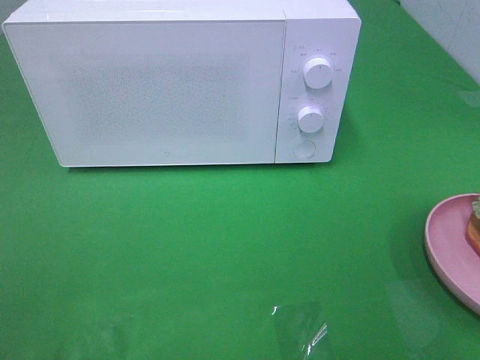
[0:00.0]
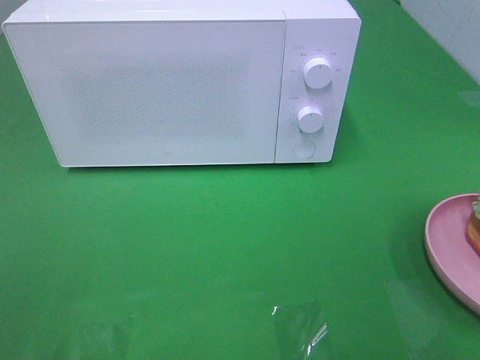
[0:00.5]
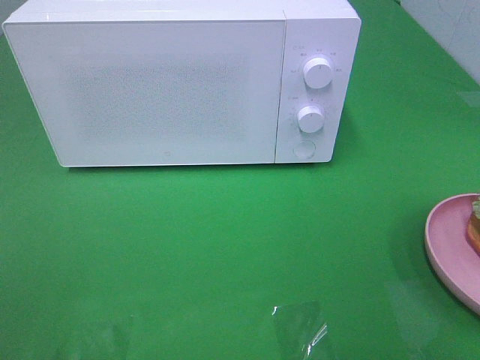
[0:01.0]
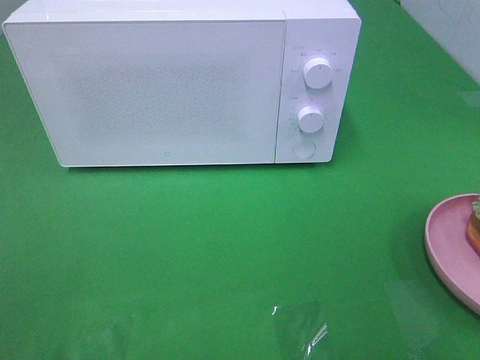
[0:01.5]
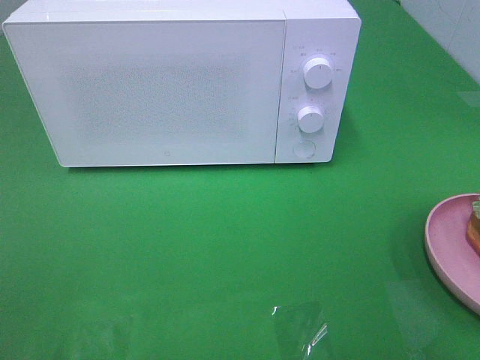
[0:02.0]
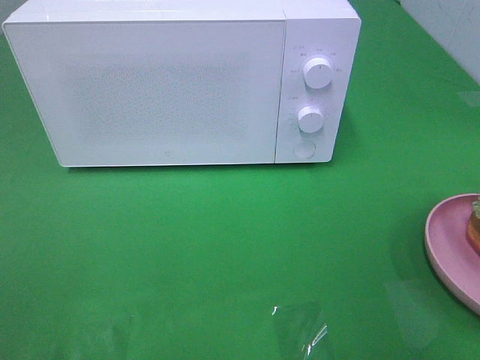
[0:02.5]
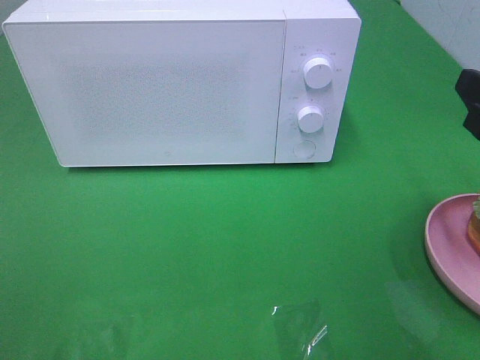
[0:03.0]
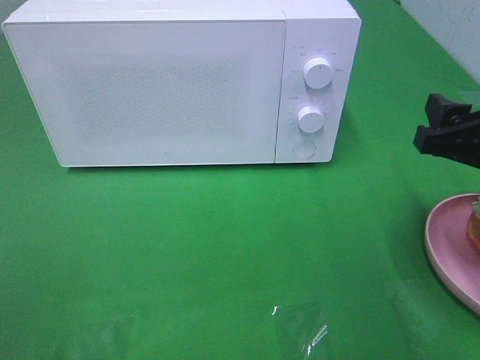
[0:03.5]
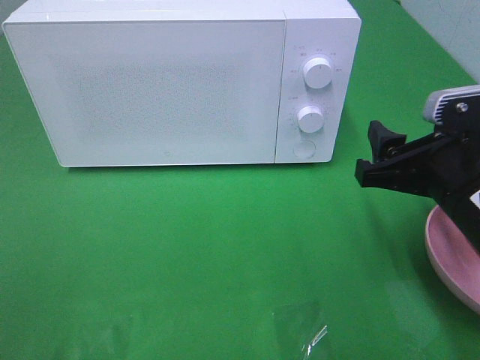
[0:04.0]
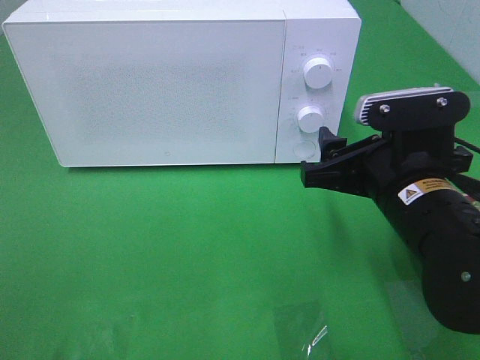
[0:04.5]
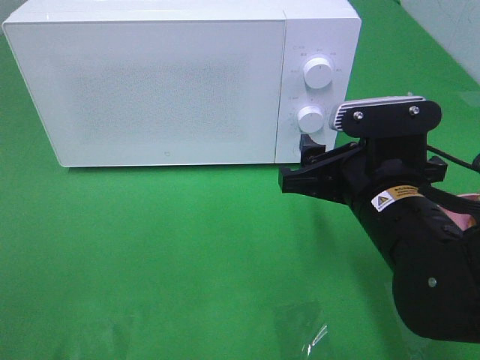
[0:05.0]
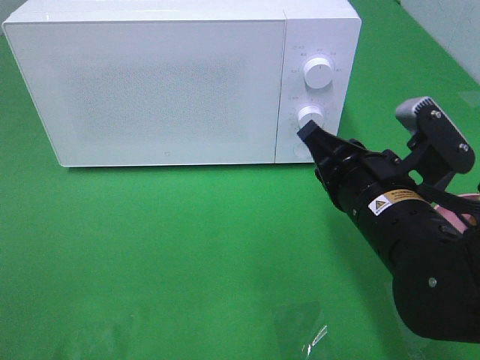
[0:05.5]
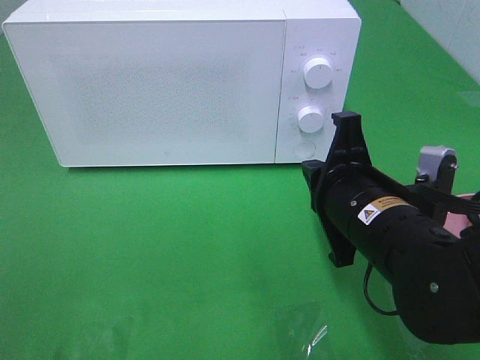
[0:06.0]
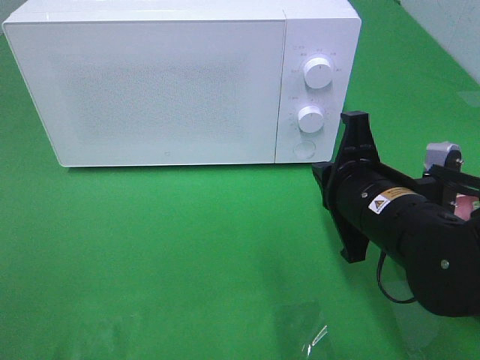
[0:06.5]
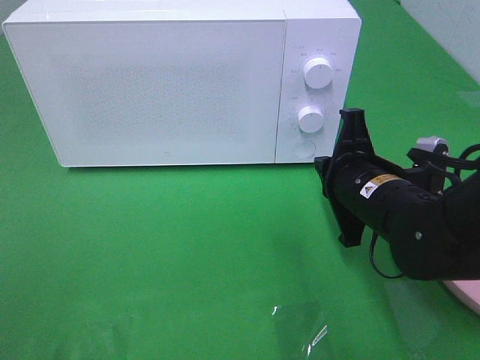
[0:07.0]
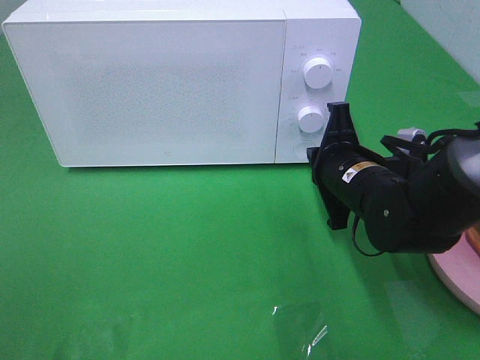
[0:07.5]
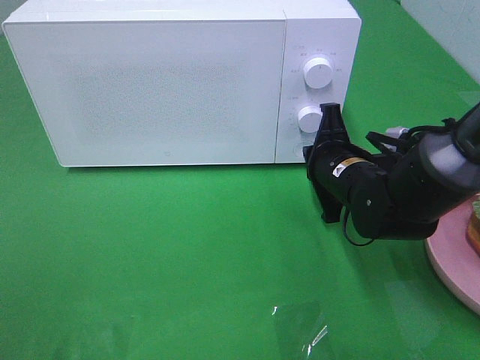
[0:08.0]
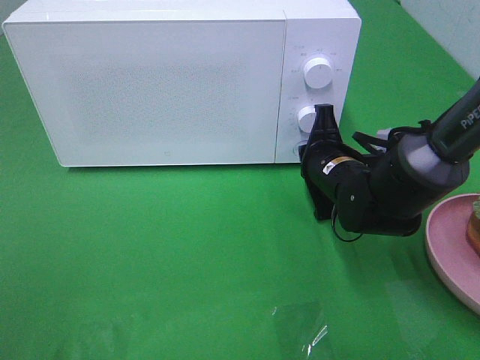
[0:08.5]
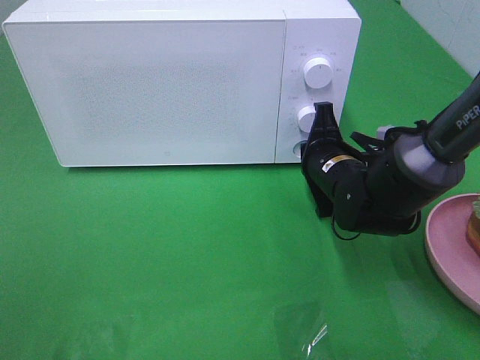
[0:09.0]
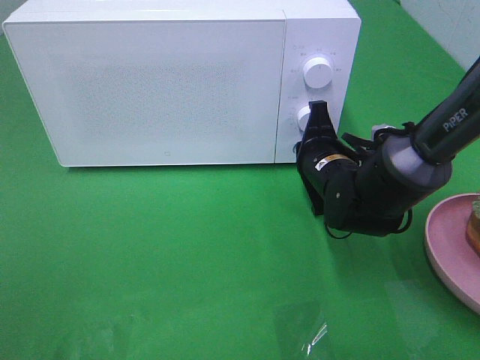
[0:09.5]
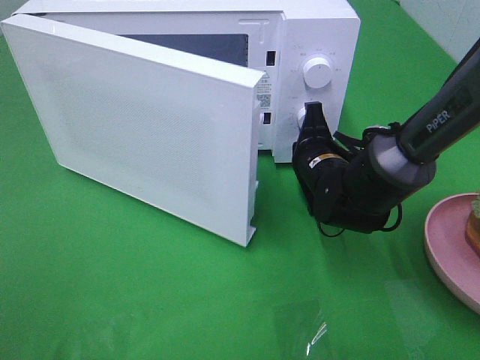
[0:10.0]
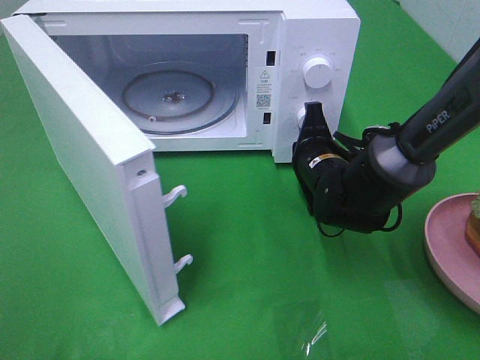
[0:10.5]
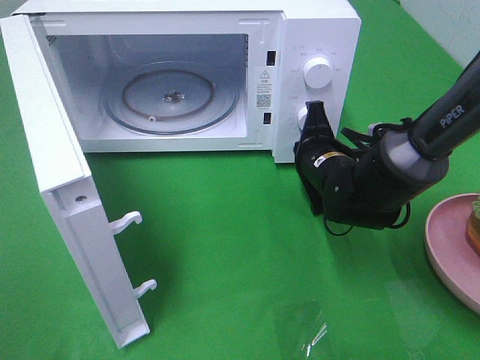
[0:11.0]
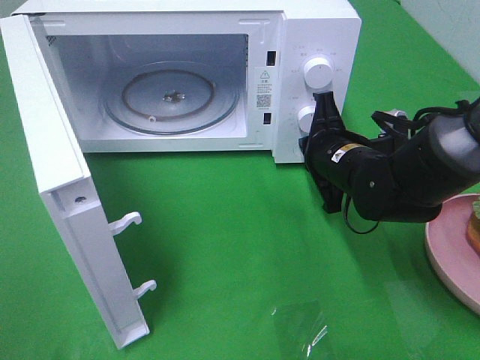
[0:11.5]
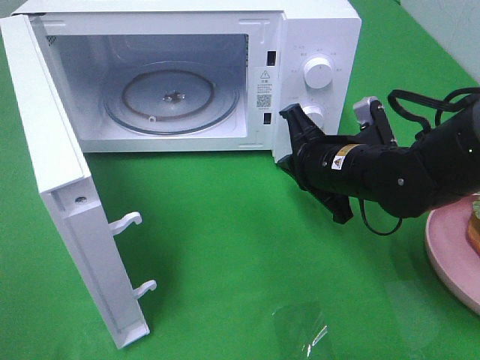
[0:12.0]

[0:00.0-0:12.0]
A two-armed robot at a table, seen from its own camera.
Task of the whole recording: Heat the burger.
Step, 0:00.0 to 0:11.0: Right hand: press the switch.
0:02.0 to 0:04.0: The right gripper is displaced forward, downward and to the left by about 20 cm.
0:04.0 to 0:06.0: The right gripper goes roughly 10 cm to the left, and closes up.
0:06.0 to 0:08.0: The right gripper goes approximately 15 cm forward and downward.
0:10.0 to 0:12.0: The right gripper shifts some 5 cm backward.

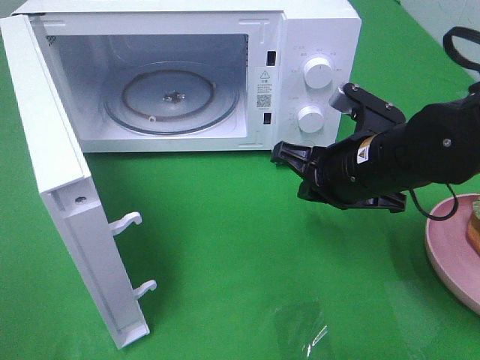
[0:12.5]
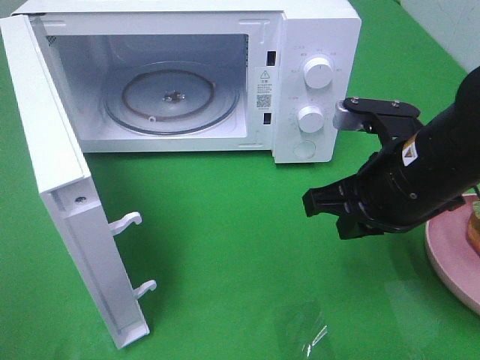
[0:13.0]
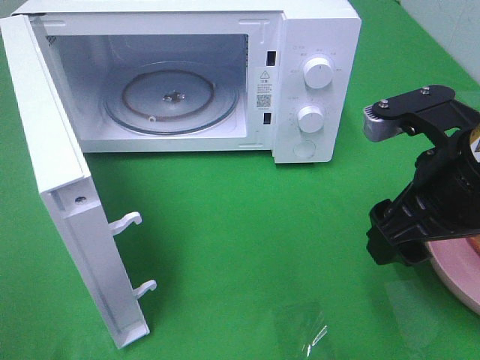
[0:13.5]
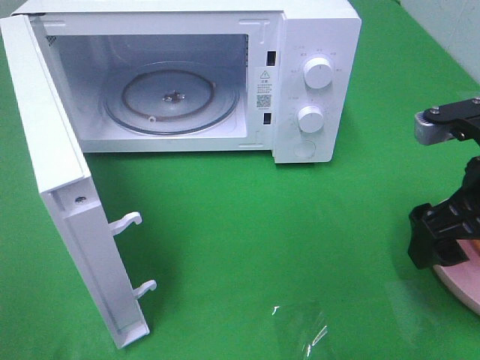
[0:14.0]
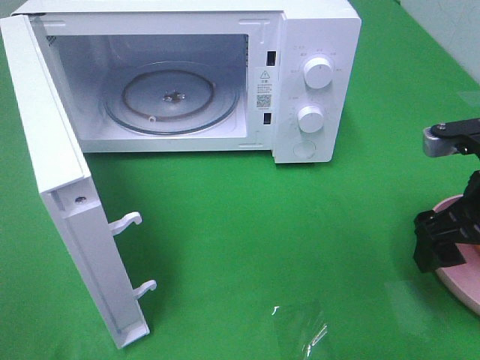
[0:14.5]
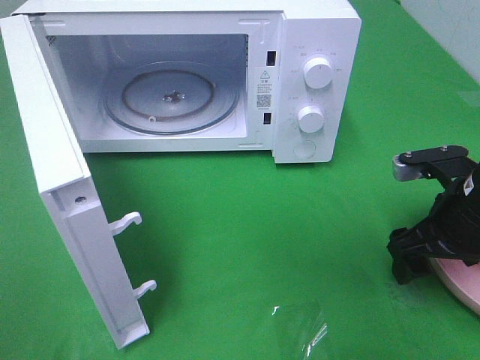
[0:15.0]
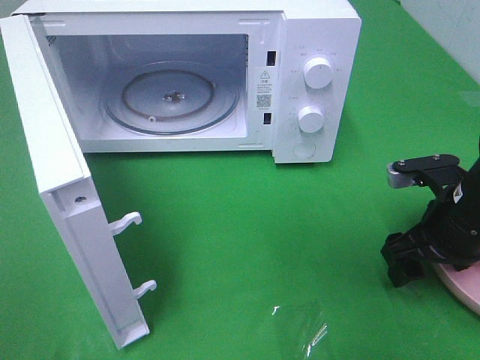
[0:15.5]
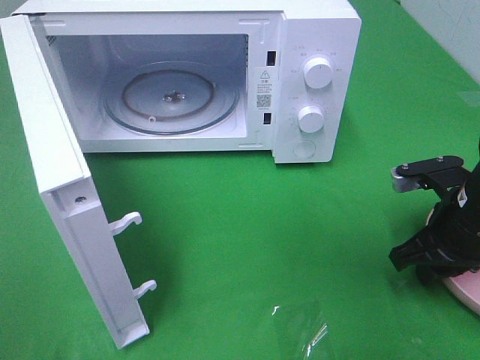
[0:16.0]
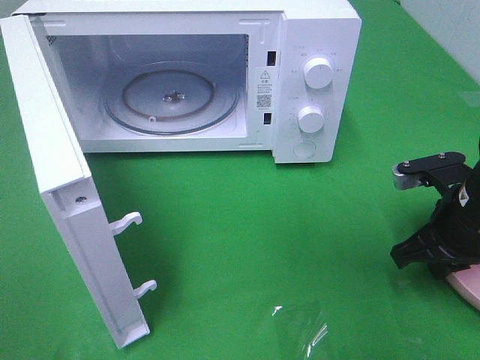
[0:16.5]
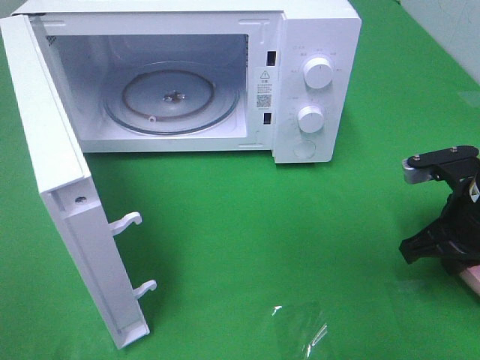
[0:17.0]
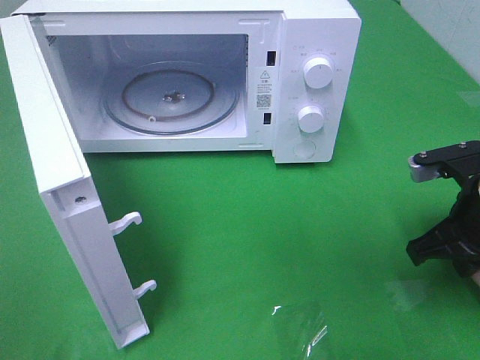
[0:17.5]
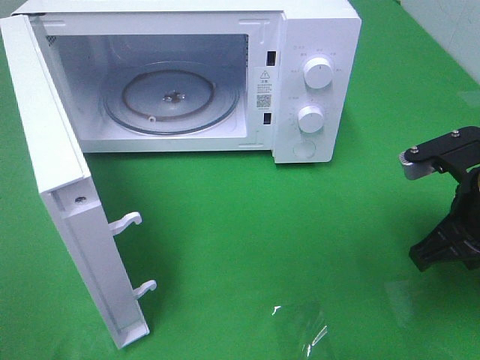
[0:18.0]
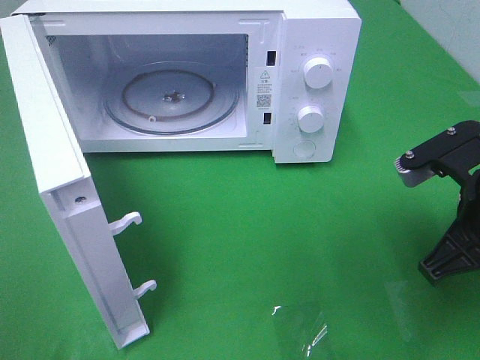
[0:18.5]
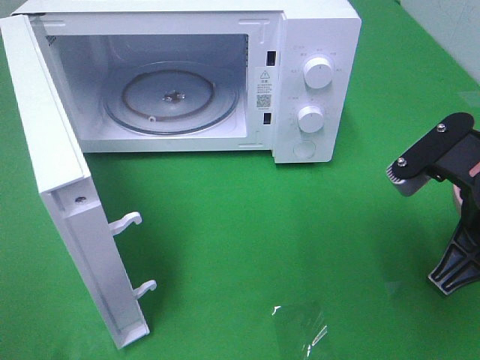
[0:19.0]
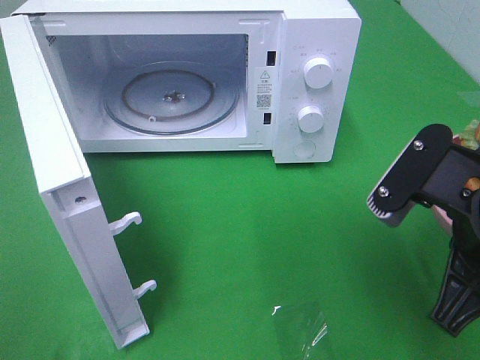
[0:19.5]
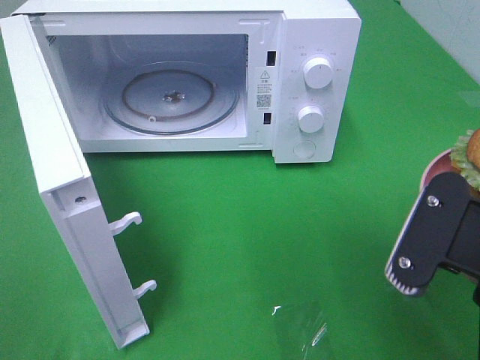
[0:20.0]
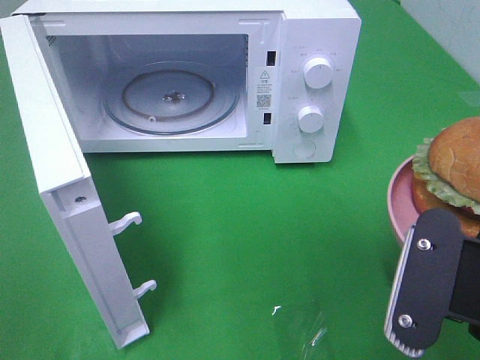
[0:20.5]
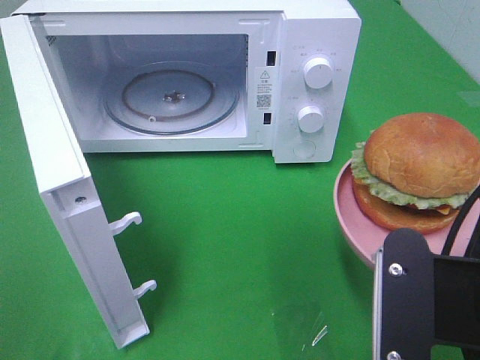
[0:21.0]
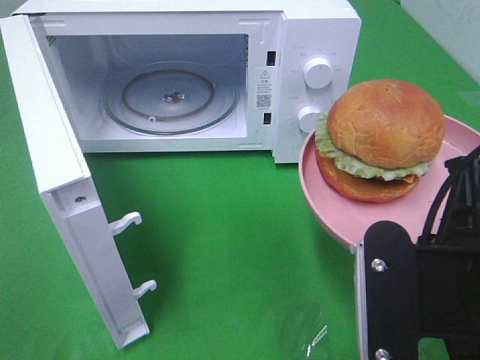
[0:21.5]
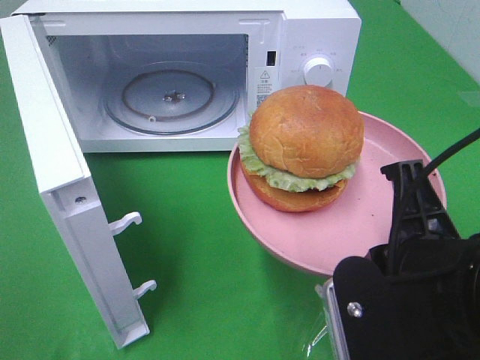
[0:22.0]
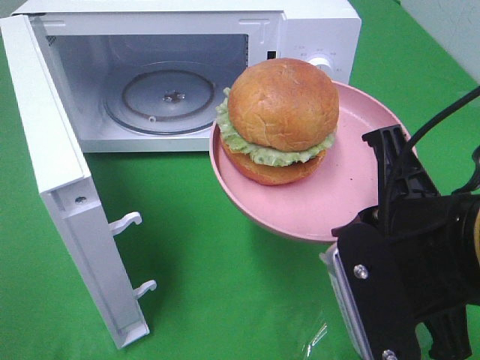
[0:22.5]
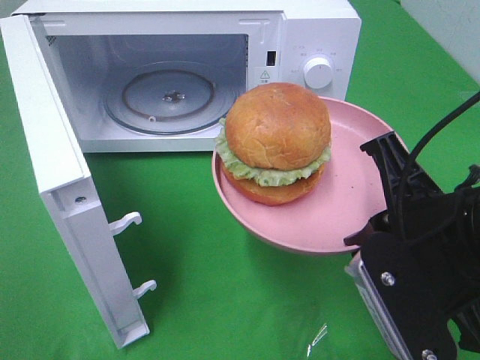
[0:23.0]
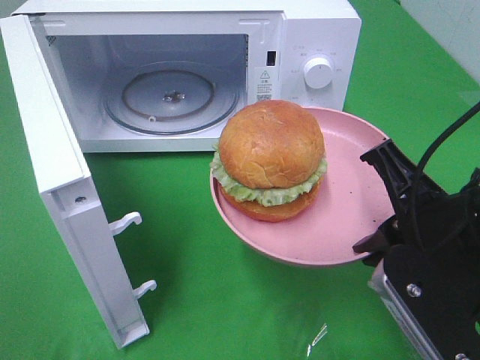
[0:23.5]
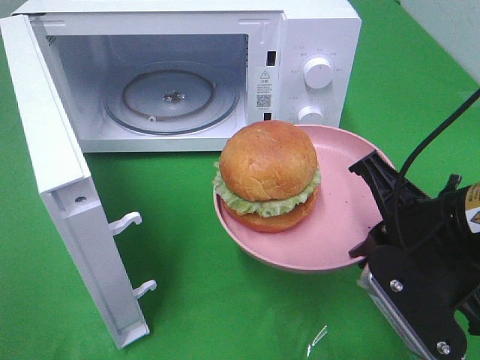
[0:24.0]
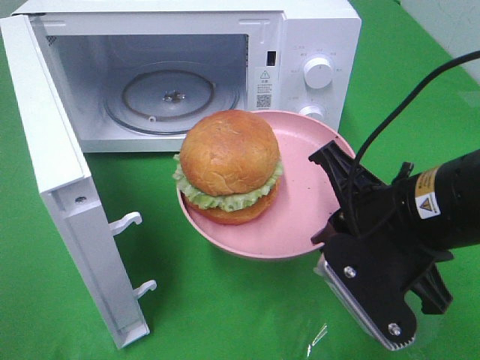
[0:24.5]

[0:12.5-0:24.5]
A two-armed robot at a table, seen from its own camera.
Task of the whole recording: Heat the burger.
Step, 0:12.5 to 0:17.5: Right hand: grab the plate with the hamburger.
0:12.5 to 0:14.5: The right gripper heads to the right, covering approximately 10 cm, and opens its fingers.
0:14.5 to 0:16.5: The right gripper is displaced downward by roughly 5 cm, and closes.
0:16.5 to 0:18.5: The right gripper is displaced upward and backward by approximately 10 cm.
0:18.5 to 0:20.5: The right gripper goes approximately 10 cm backward.
0:20.5 to 0:22.5: The right gripper moves roughly 5 cm.
0:22.5 to 0:24.5: The right gripper shifts approximately 5 cm forward.

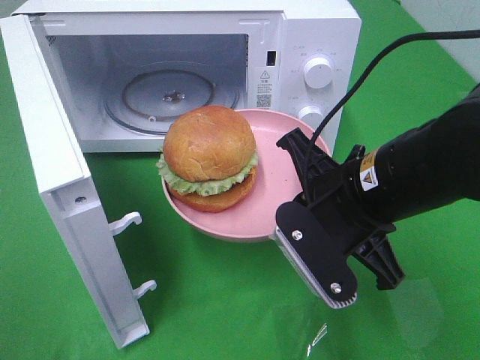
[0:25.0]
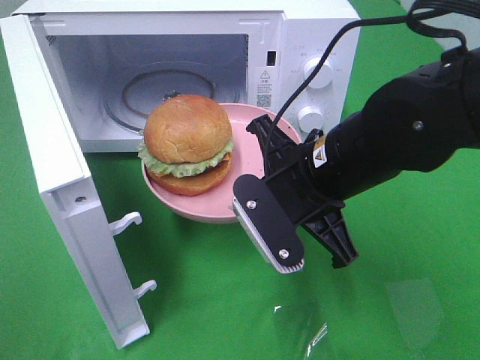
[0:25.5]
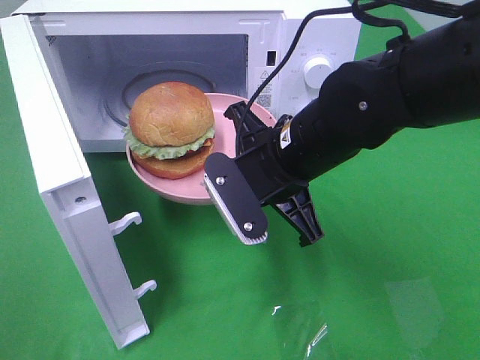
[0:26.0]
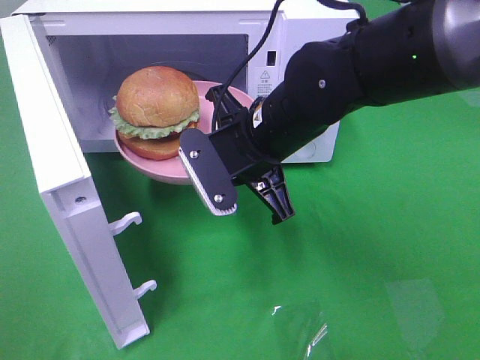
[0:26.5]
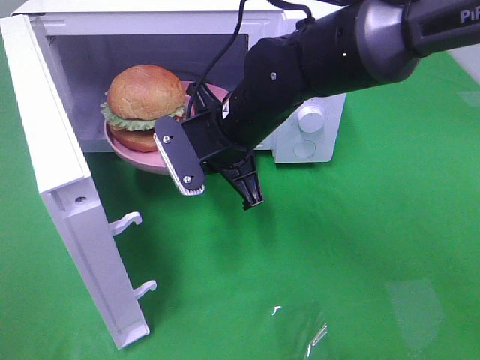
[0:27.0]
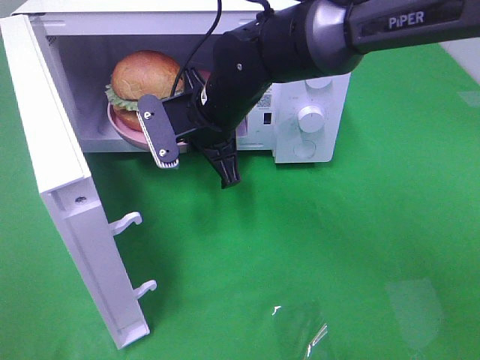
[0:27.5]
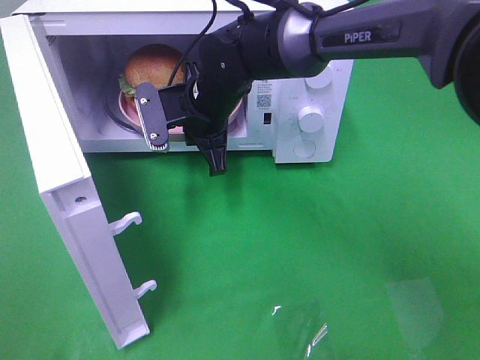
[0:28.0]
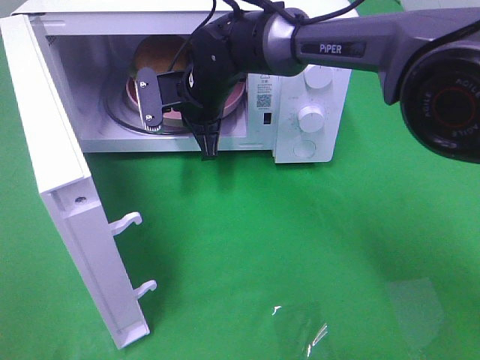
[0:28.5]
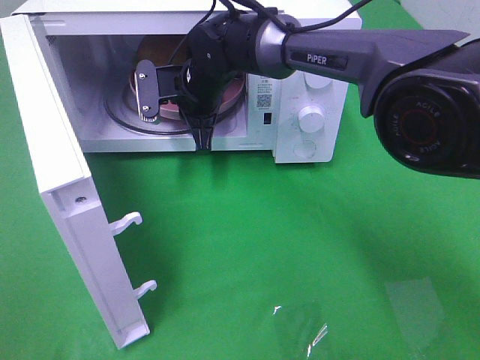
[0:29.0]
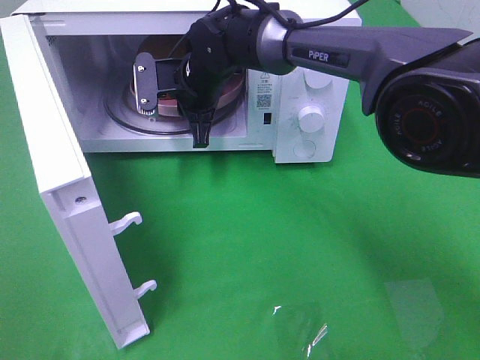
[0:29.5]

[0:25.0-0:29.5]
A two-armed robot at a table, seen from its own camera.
Task of the whole recording: Heat the burger.
0:25.0 to 0:27.0: The right gripper travels forward and to the left by some 15 cm.
0:27.0 to 0:29.5: The right gripper travels forward by some 15 cm.
